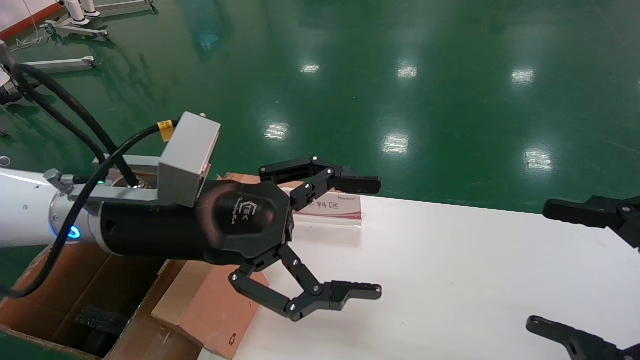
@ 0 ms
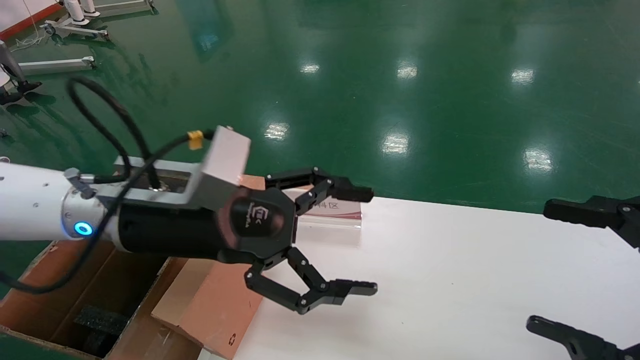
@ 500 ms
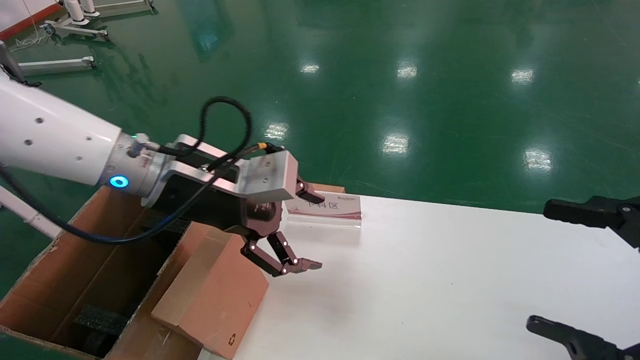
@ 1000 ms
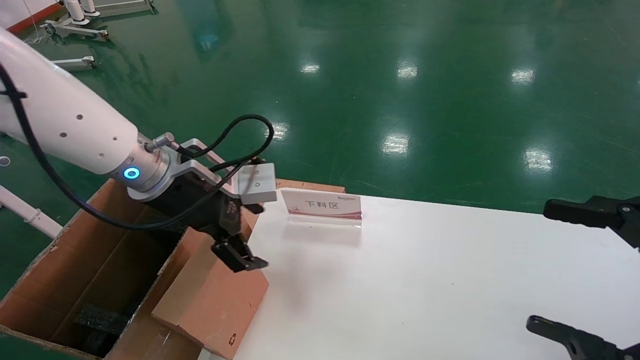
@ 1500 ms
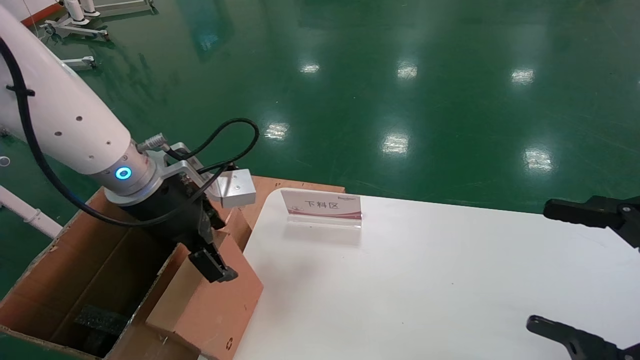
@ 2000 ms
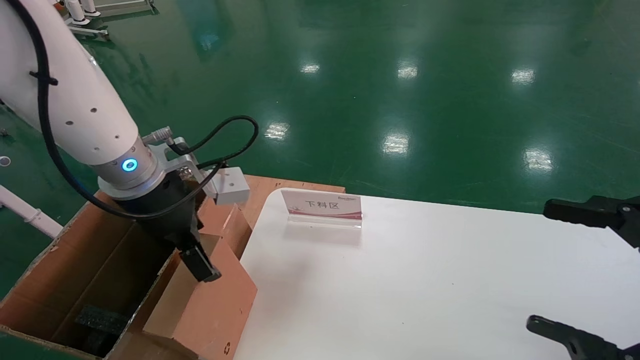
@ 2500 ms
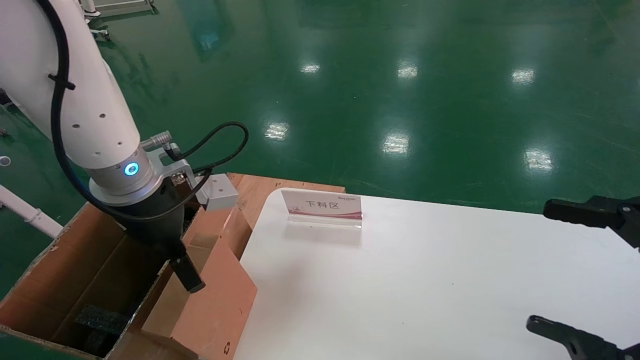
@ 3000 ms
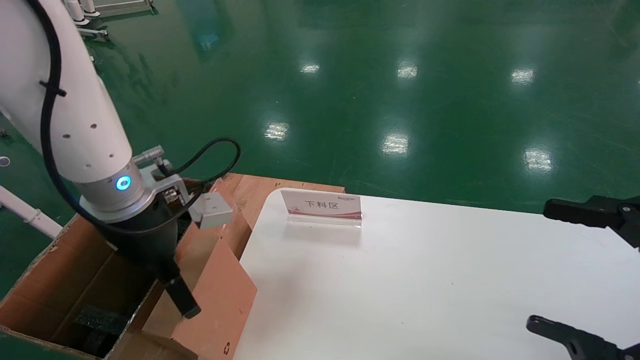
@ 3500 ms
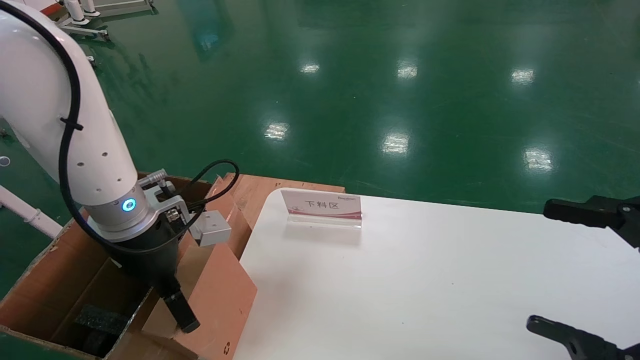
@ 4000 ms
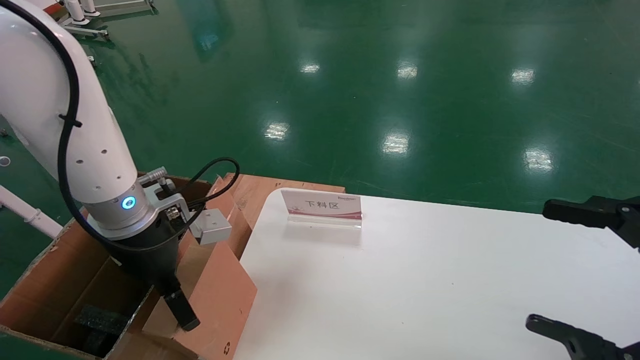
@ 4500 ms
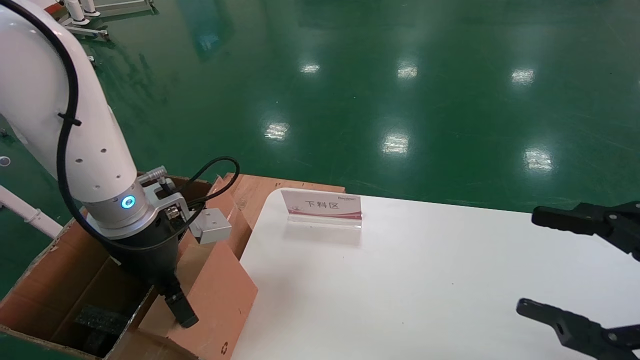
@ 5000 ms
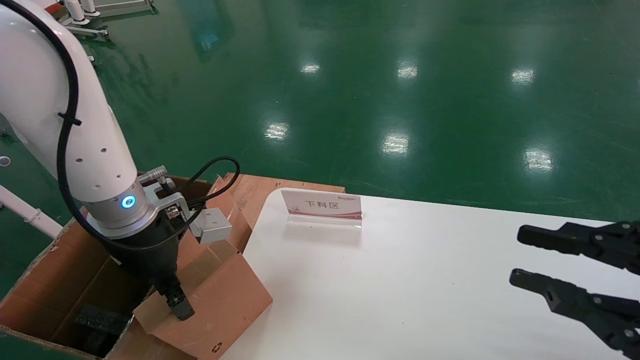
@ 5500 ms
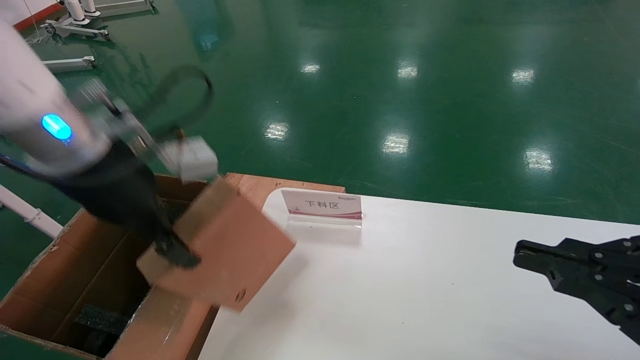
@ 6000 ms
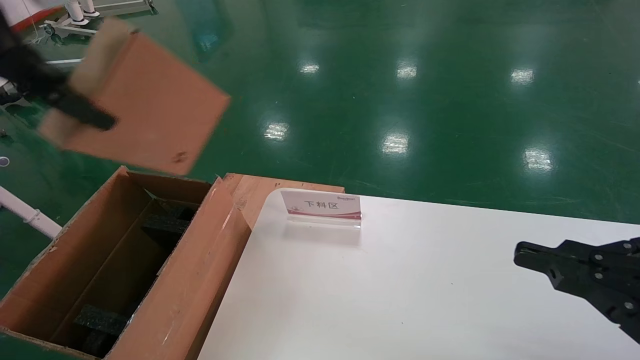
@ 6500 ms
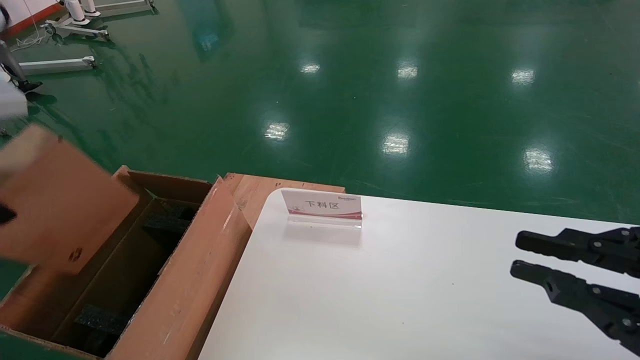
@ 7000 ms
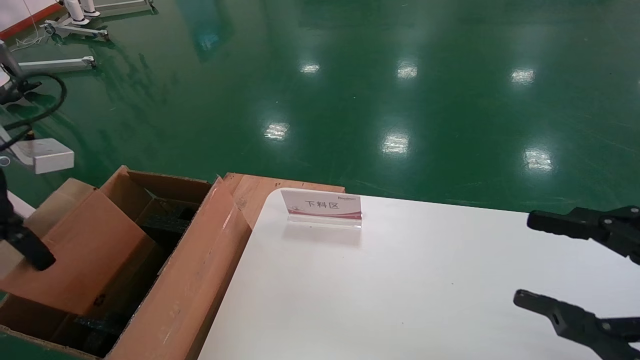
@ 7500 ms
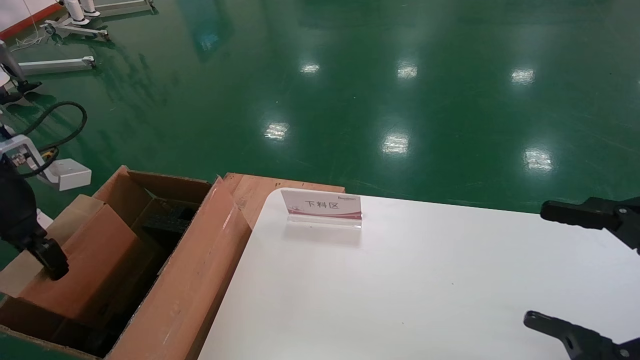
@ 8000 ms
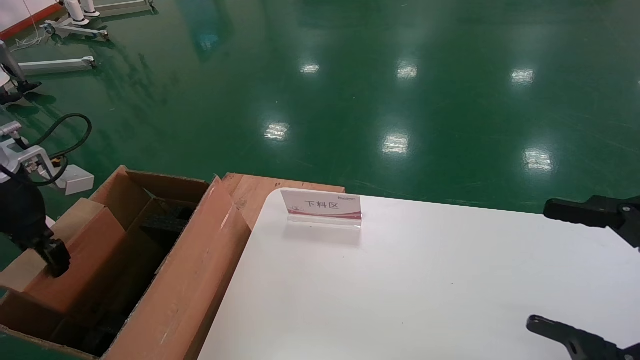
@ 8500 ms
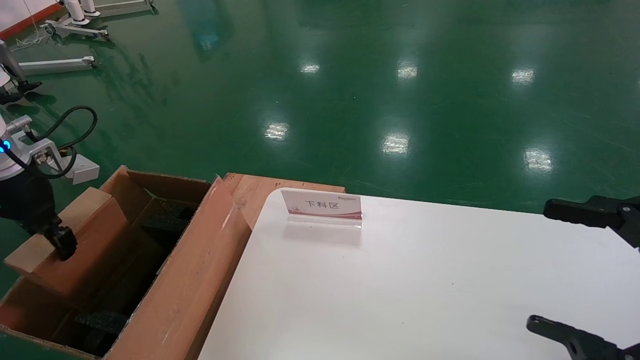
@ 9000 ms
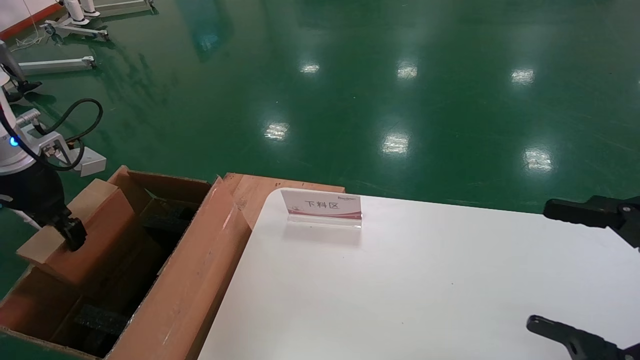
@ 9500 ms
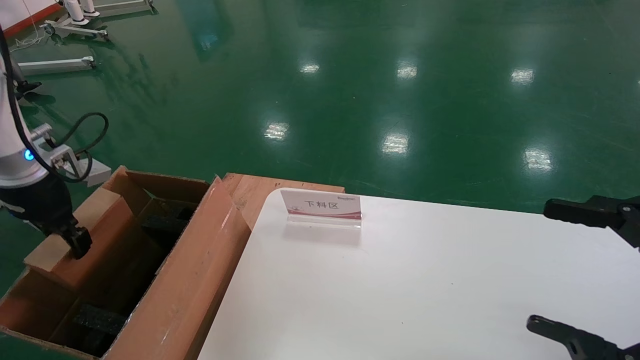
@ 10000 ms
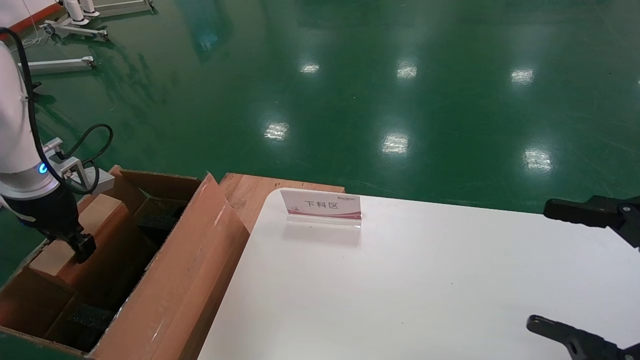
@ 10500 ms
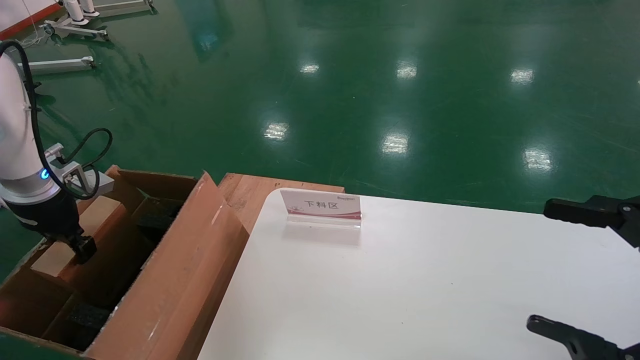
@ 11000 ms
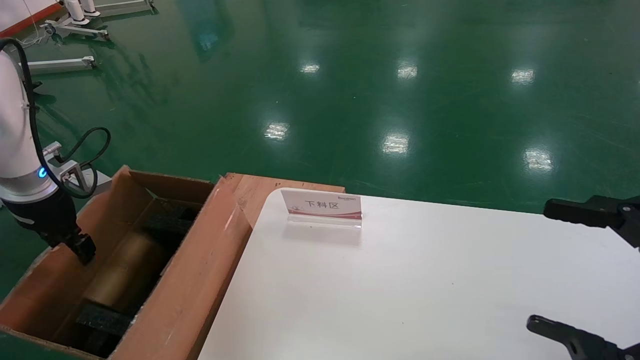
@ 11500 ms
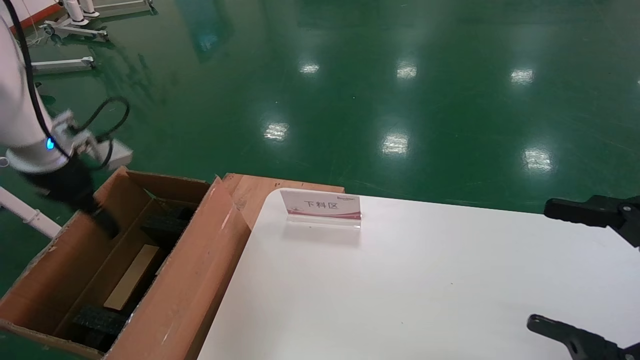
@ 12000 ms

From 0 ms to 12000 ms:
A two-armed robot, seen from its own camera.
Task of the whole recording: pick up the small cardboard box and load it into the large cardboard box.
Step, from 500 ms to 5500 ms: Pick up the mouse and power cord box.
Step, from 6000 ms to 11500 ms: Place the mouse and power cord box into the case.
From 0 ms to 2000 ms: The left gripper goes about 5 cm forward.
From 4000 ms to 6000 ms: The left gripper moves upward, about 10 cm, and closes its fingers, while the right gripper closes.
From 6000 ms to 8000 ms: The right gripper opens its fingers. The left gripper moves to the left, about 15 cm.
From 8000 ms to 10000 ms: The left gripper shifts about 5 cm forward.
From 10000 ms to 12000 ms: The left gripper opens up.

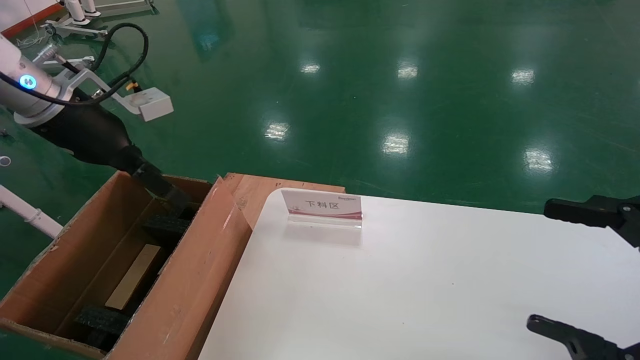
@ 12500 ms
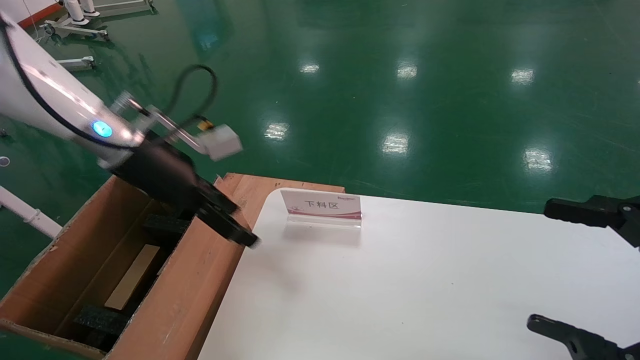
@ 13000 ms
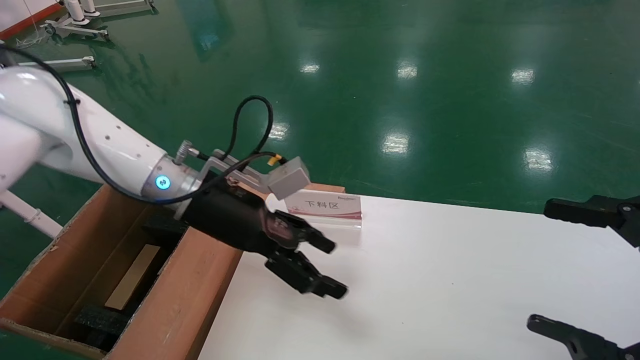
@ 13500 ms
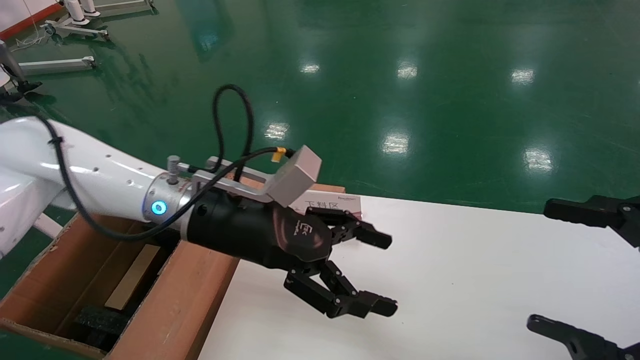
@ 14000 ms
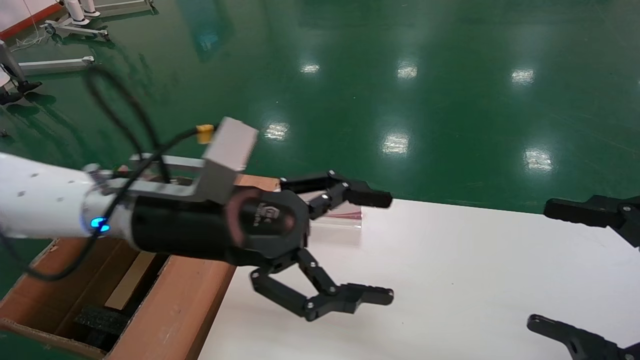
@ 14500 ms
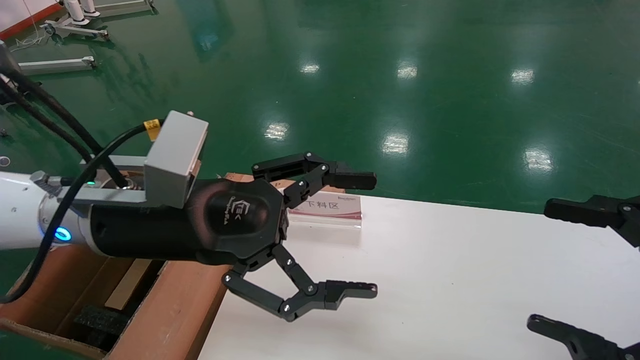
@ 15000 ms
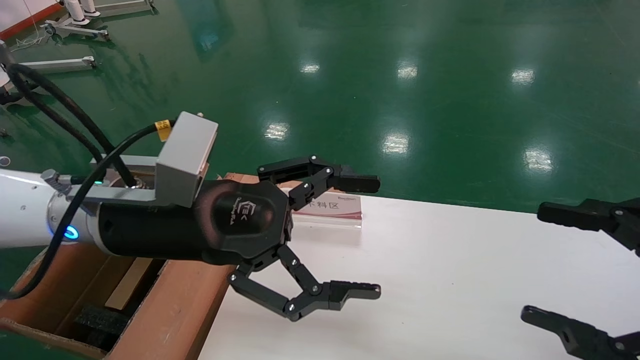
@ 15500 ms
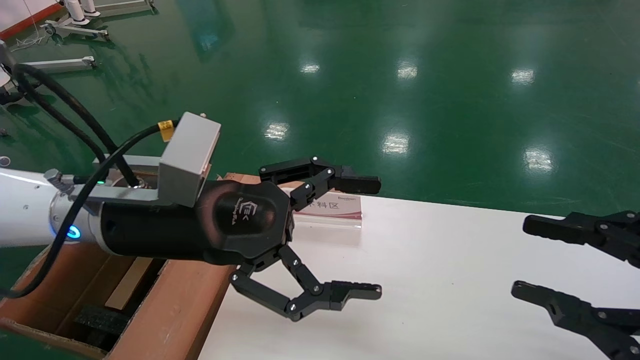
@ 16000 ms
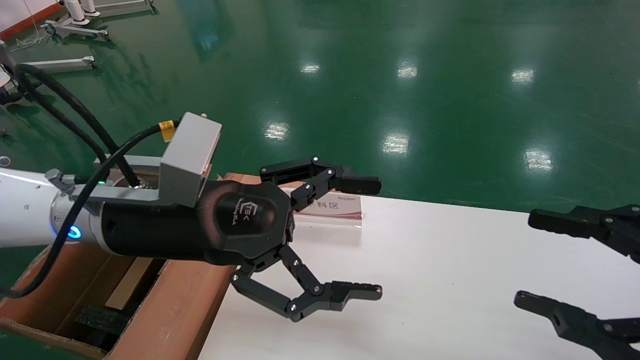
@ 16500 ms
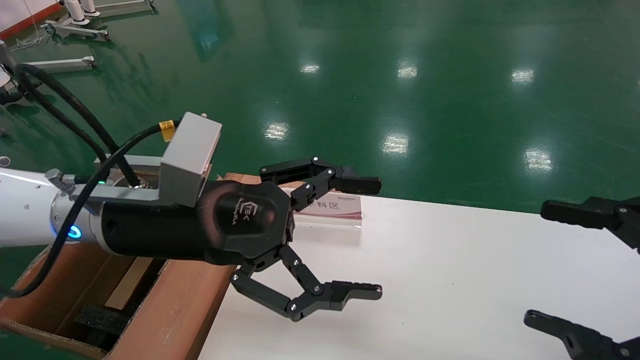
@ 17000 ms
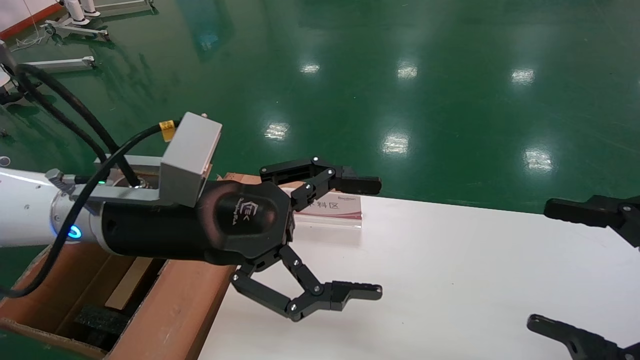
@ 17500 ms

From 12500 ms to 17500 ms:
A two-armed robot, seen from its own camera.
Task of the whole recording: pick up the small cardboard box and load it into the large cardboard box.
From 12500 ms to 15000 ms: The left gripper shifts roughly 20 cm to the right and backward.
From 15000 ms to 17500 ms: The right gripper closes, then reopens.
